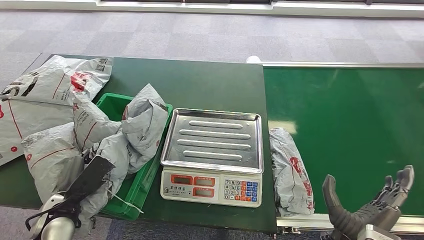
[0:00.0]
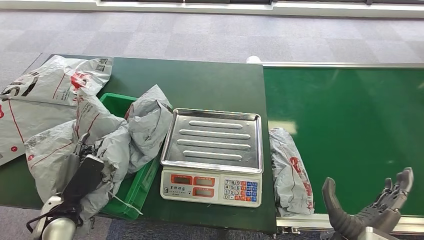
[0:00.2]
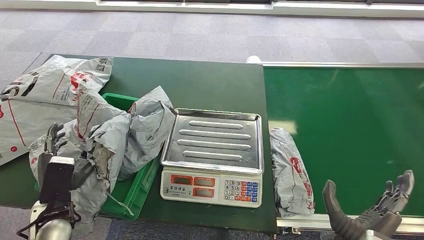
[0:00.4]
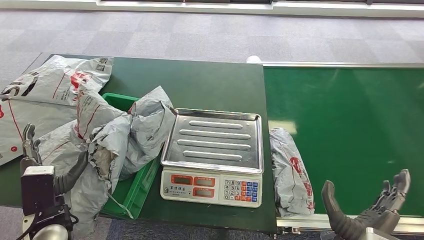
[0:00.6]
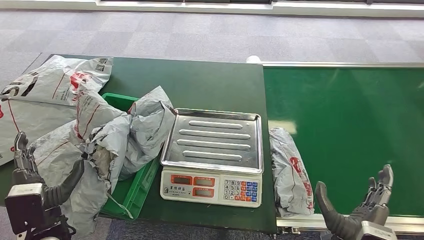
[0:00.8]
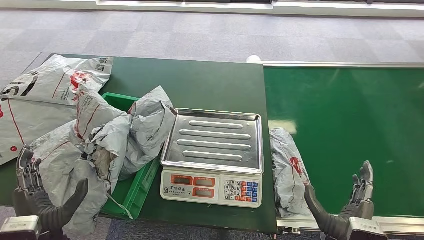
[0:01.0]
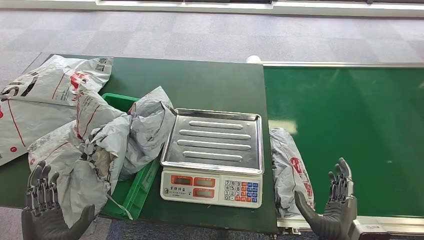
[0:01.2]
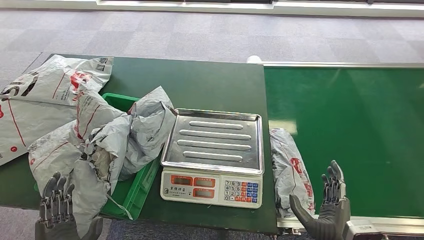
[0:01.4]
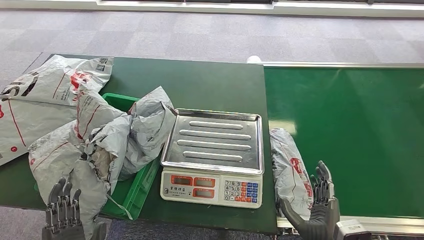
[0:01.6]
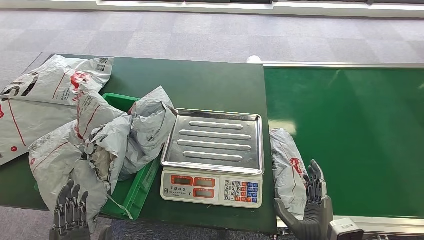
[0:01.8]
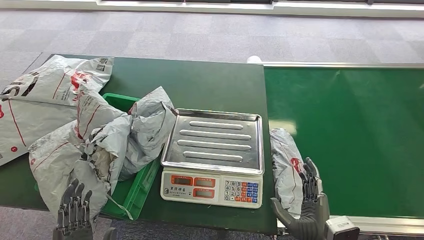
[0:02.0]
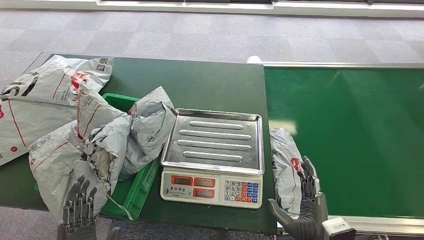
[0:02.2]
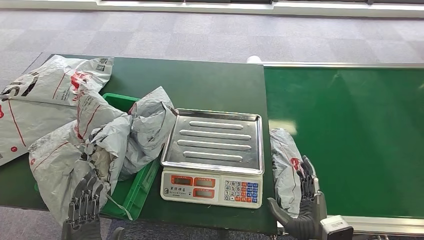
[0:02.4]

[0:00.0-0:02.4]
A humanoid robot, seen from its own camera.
Step, 0:00.0 to 0:02.4: Place the package into the parcel locker.
0:00.0 to 0:01.2: The left hand goes approximately 15 cm backward and to the right.
0:01.2 to 0:02.4: The left hand moves to the right, some 5 cm.

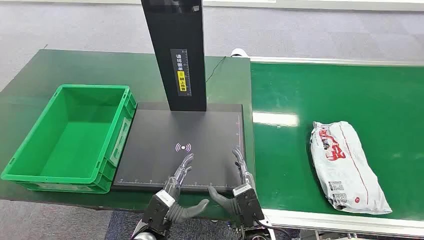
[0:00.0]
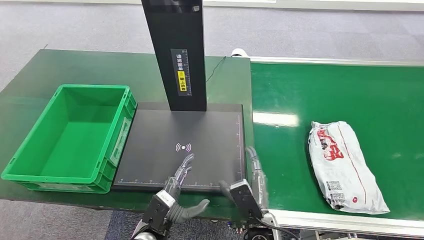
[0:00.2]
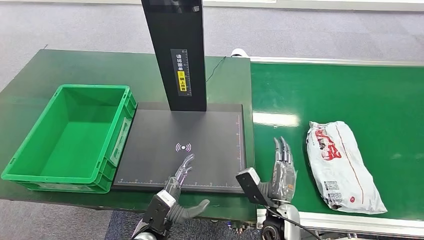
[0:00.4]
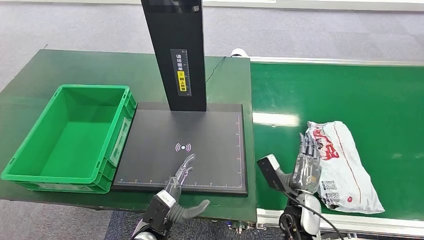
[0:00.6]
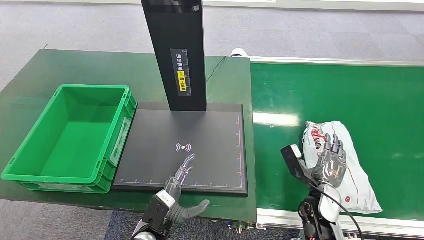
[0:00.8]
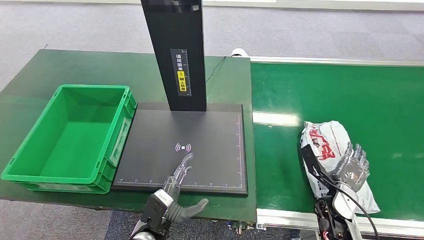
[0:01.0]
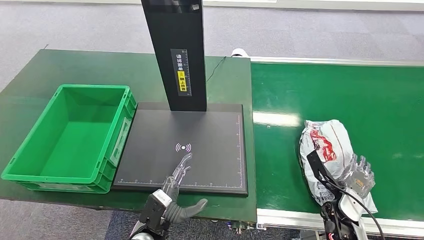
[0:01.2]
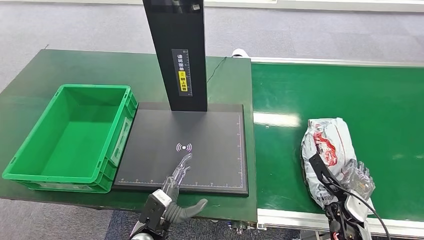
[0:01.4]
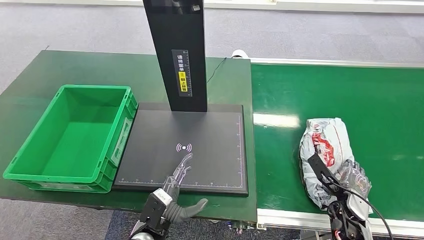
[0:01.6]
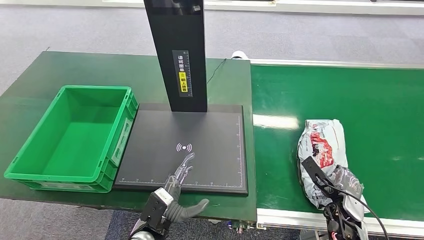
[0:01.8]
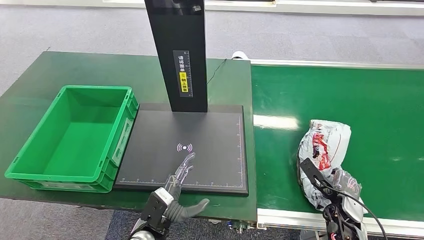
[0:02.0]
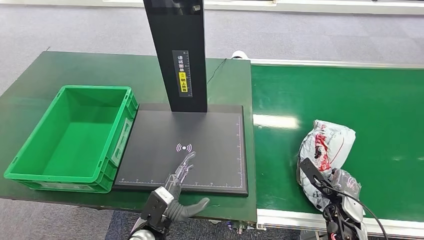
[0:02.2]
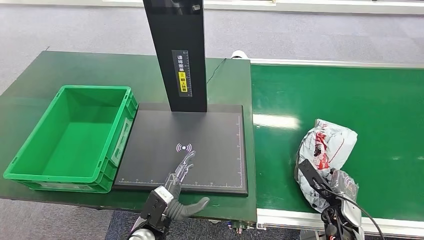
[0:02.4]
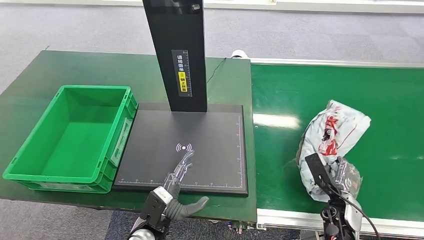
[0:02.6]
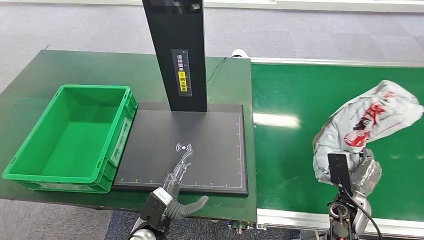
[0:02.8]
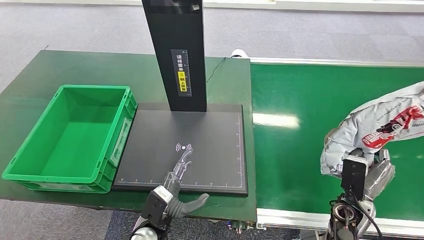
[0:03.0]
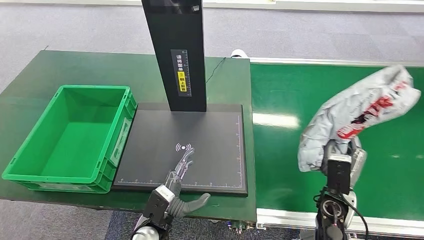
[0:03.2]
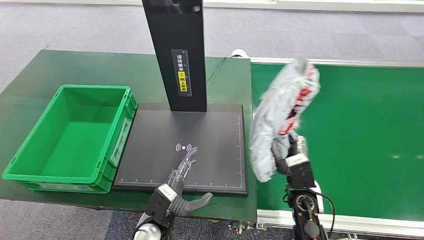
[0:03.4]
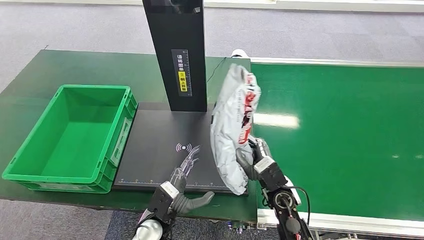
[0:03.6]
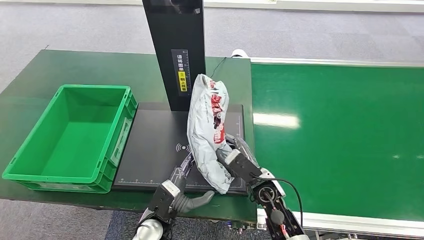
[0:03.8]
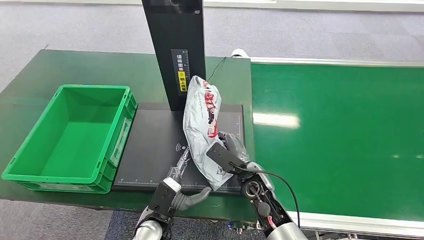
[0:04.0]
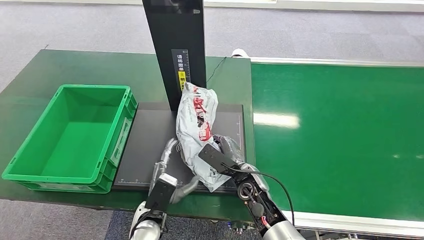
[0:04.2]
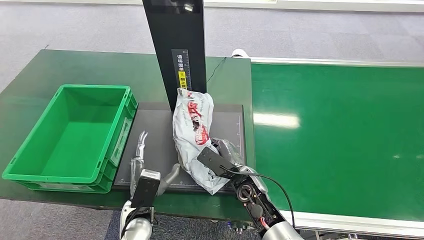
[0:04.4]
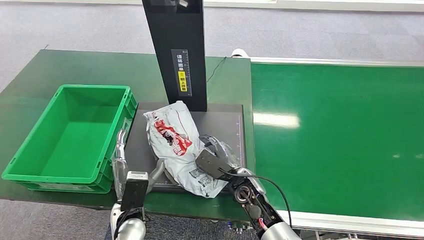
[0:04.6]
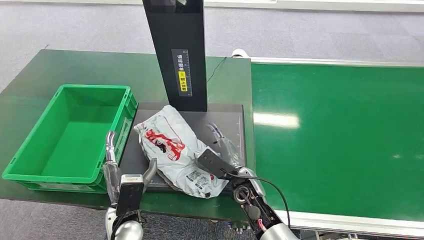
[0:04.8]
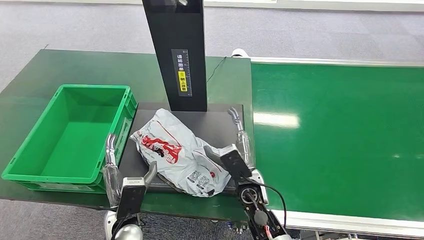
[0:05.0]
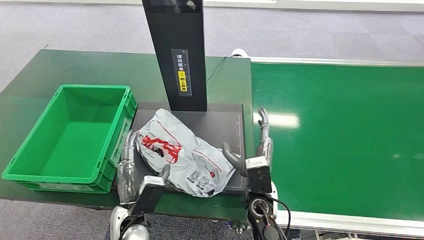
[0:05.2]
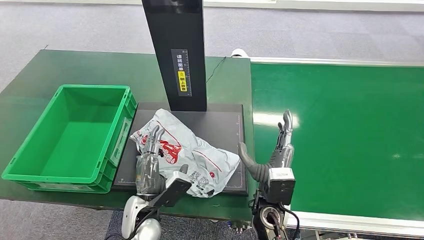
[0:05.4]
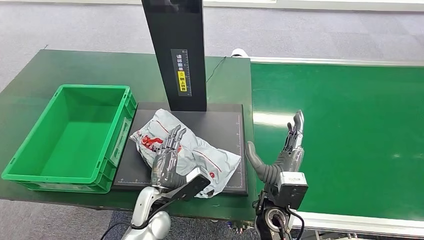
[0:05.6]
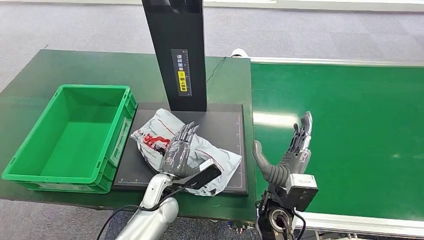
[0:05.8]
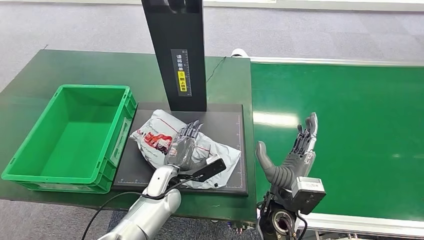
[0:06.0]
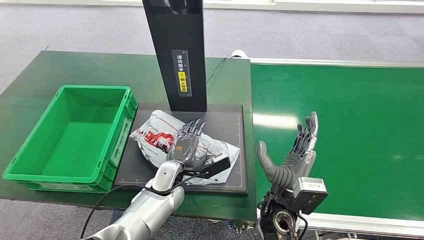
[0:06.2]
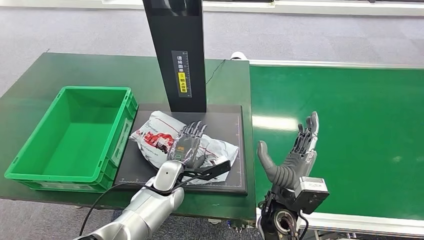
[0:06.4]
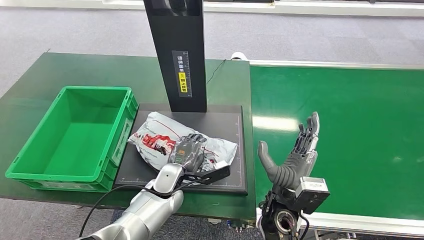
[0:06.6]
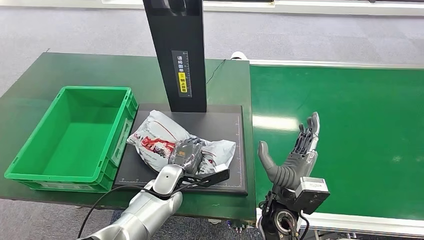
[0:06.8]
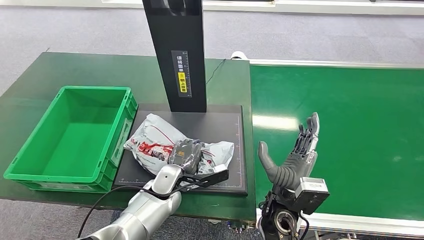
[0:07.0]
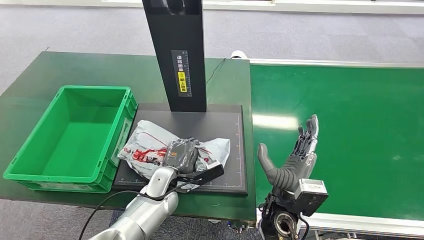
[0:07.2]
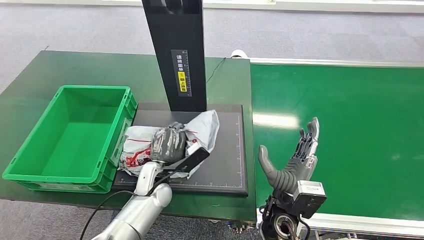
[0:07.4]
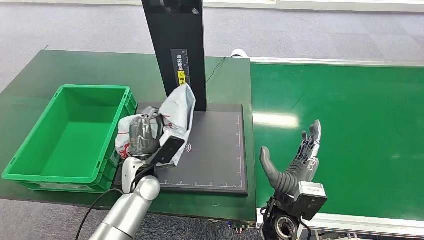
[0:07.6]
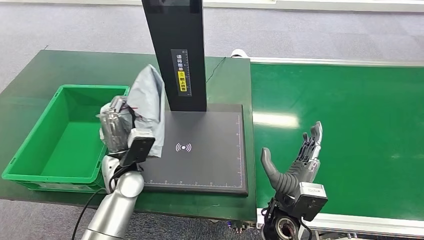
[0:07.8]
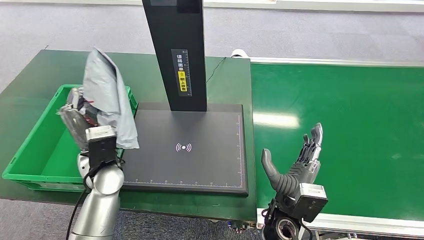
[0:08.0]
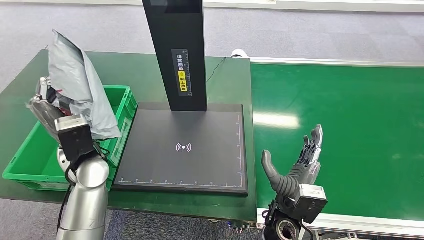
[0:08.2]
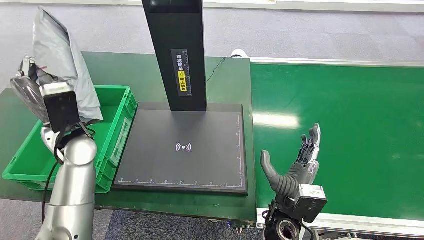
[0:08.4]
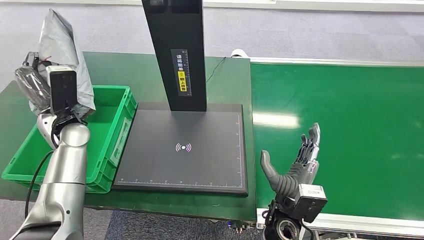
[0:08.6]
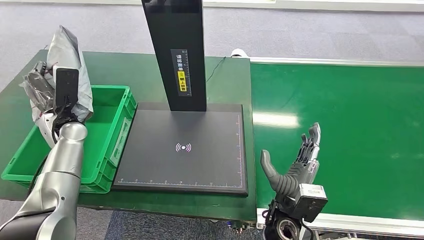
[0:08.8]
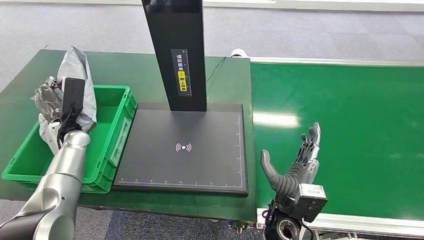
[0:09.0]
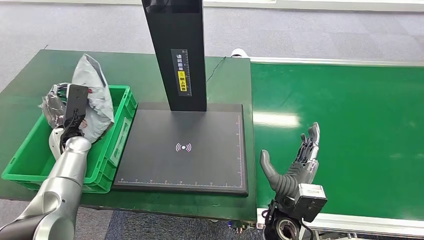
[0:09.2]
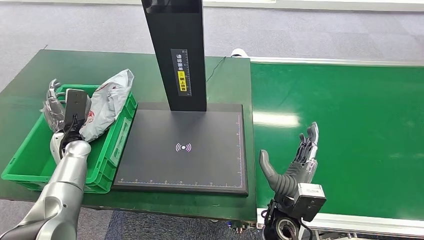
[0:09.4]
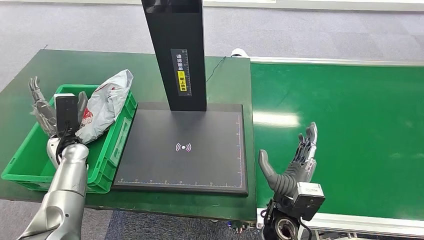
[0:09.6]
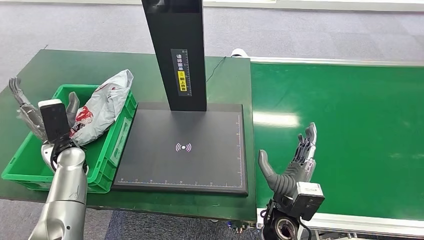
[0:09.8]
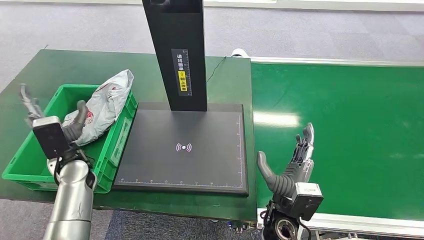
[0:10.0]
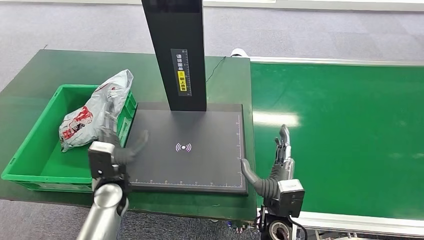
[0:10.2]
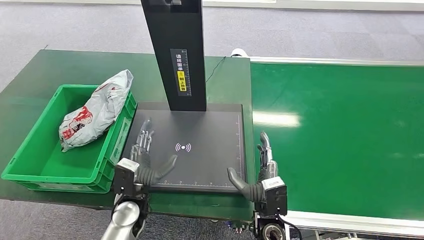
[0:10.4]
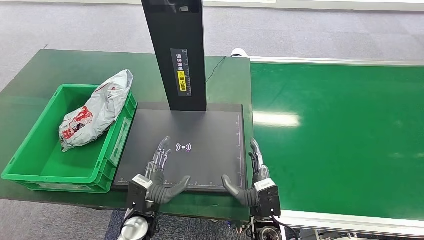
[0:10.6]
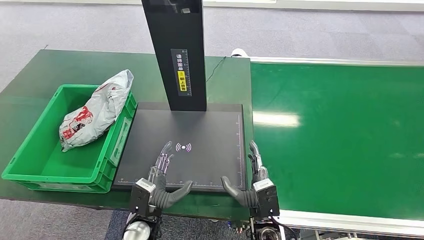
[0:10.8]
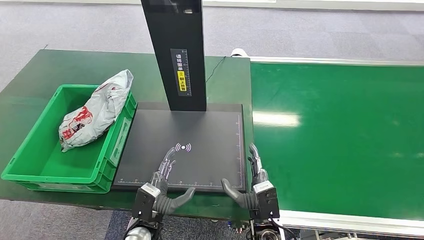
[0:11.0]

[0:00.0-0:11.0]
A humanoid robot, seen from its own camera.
Step, 0:00.0 to 0:03.2: Pick up the package from the conveyor belt.
Step, 0:03.4 to 0:05.2: Place the package onto the inbound machine.
Step, 0:05.4 to 0:08.2: Pick up the package from the inbound machine.
Step, 0:08.4 to 0:11.0: Place the package into the parcel locker.
0:01.6 to 0:03.2: The right hand is displaced to the left and upward by roughly 10 cm.
0:04.8 to 0:06.2: The left hand heads forward and to the right, covering about 15 cm; the right hand goes some 10 cm upward and backward.
0:06.2 to 0:07.8: The left hand heads upward and to the left, covering approximately 10 cm.
0:07.8 to 0:09.4: The left hand heads to the left and forward, covering some 20 cm.
0:09.4 to 0:11.0: The right hand shifts about 5 cm downward; the left hand goes some 30 cm to the right, backward and downward.
